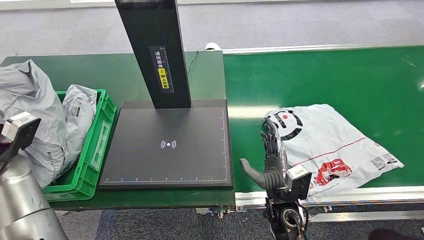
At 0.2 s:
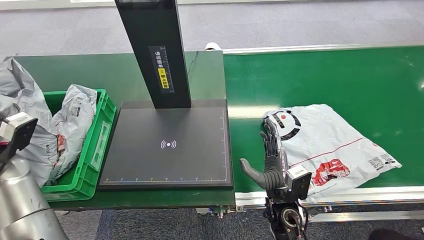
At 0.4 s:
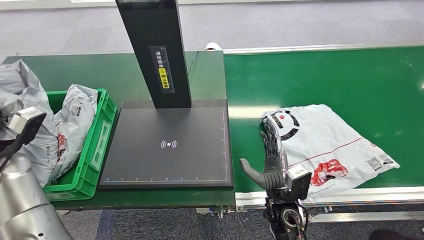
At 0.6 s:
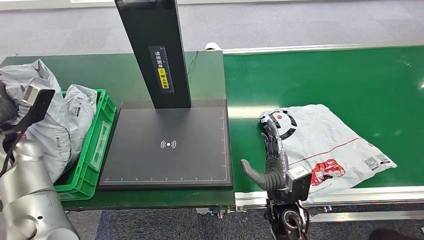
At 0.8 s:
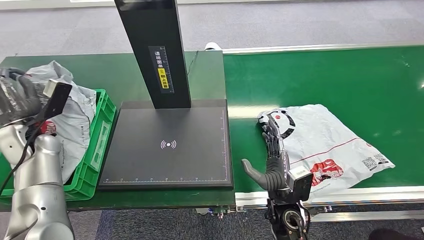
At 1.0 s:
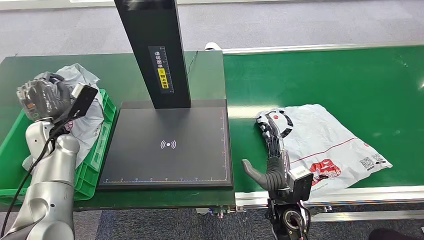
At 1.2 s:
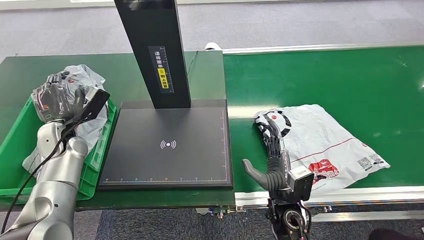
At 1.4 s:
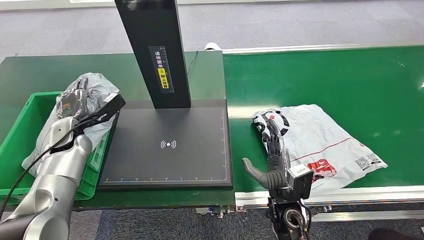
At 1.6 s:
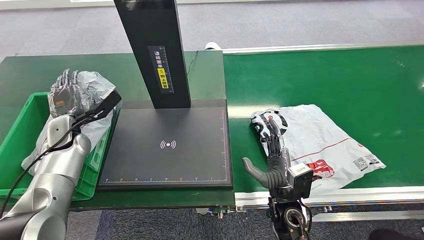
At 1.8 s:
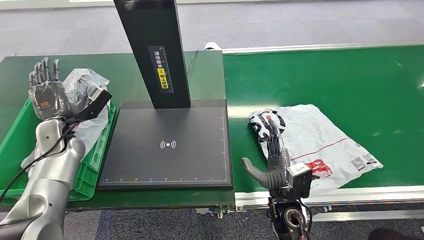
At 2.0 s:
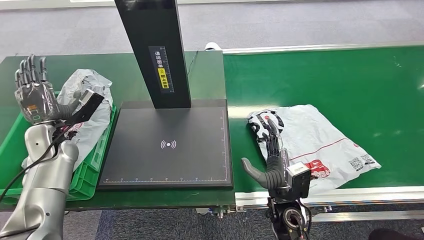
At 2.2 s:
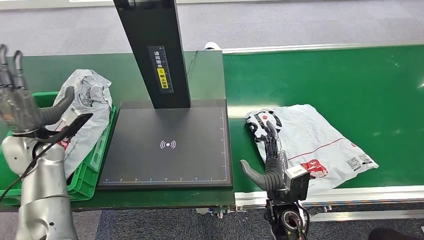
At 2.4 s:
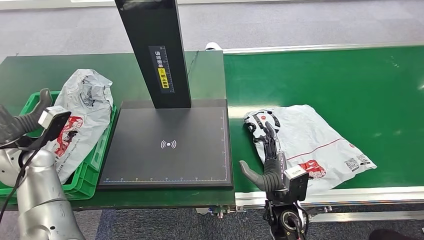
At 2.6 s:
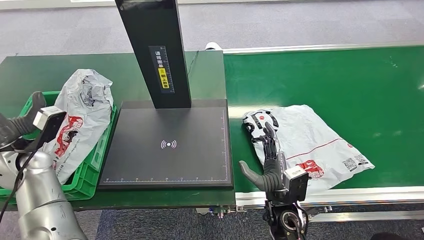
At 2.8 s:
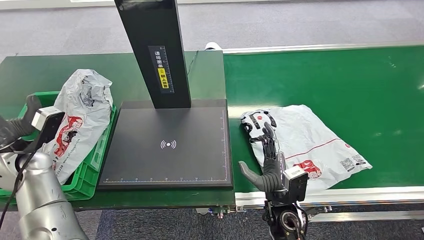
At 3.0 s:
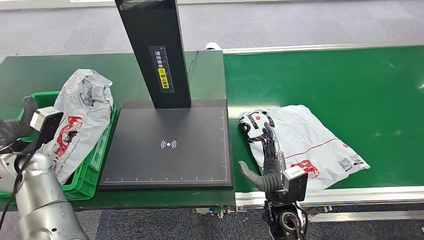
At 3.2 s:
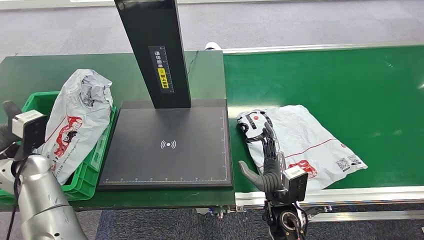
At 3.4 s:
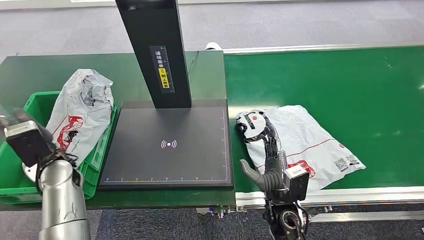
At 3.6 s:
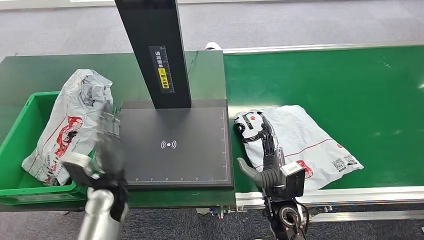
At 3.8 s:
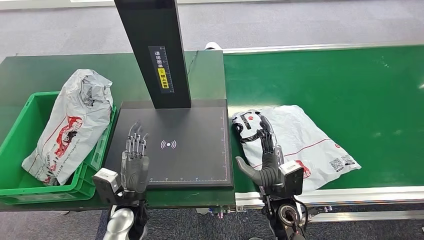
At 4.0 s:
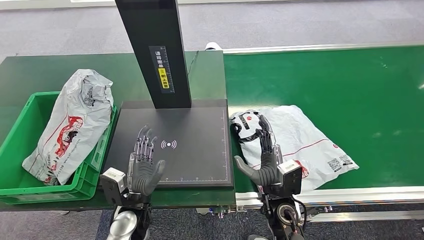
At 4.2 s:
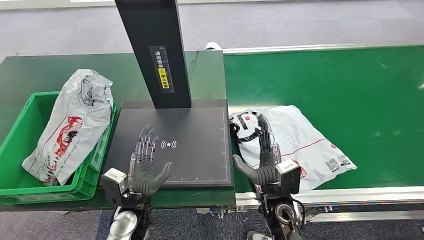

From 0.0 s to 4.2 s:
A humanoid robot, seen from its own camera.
Step, from 0.0 s to 4.0 s: Place the package into the parcel locker.
From 0.0 s to 1.4 s: The left hand heads forward, downward and to the right, covering roughly 15 cm.
From 1.4 s to 2.8 s: The left hand heads backward, covering about 10 cm.
From 2.8 s to 4.2 s: The left hand goes some 30 cm to the right, downward and backward.
